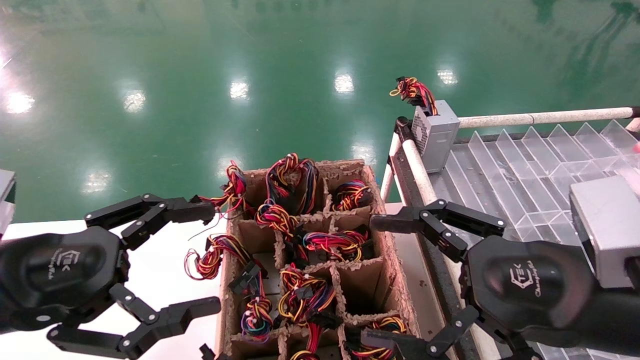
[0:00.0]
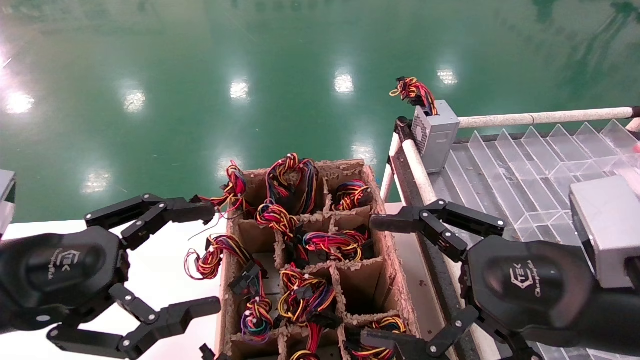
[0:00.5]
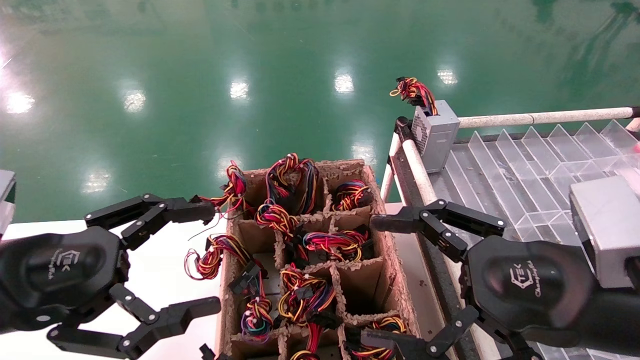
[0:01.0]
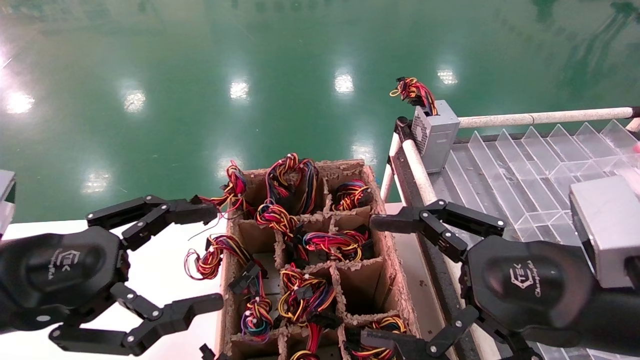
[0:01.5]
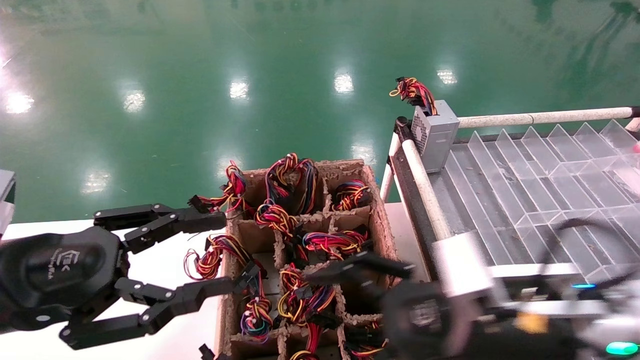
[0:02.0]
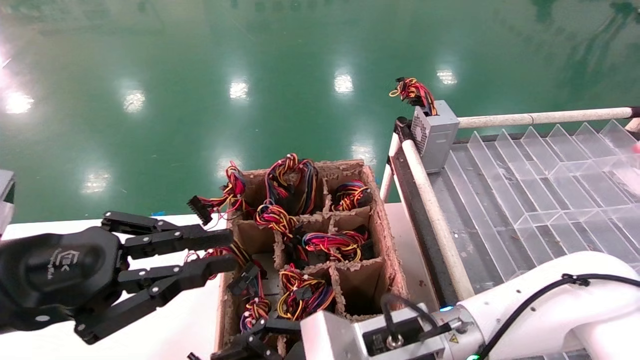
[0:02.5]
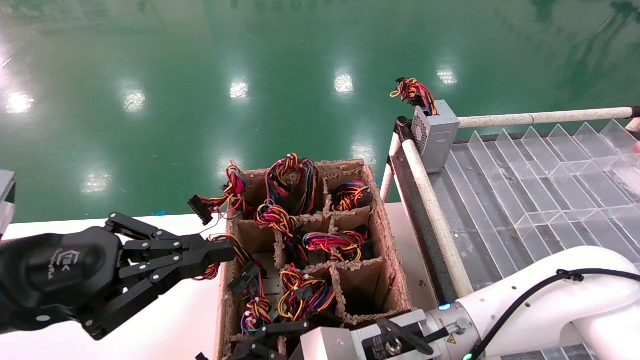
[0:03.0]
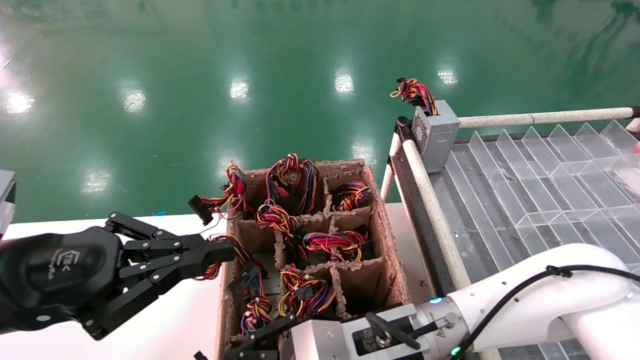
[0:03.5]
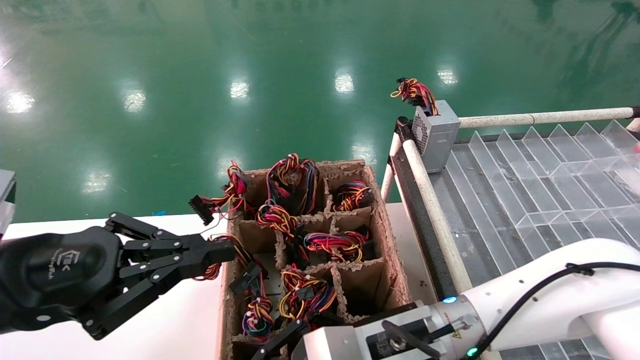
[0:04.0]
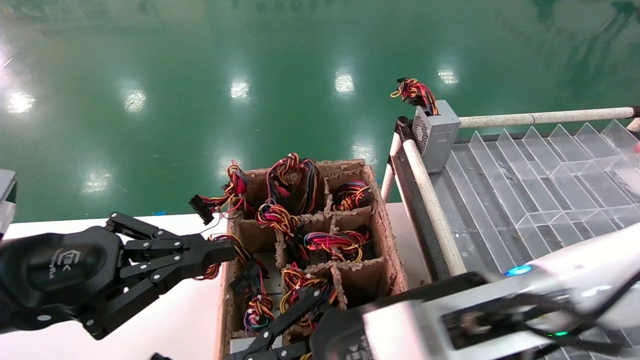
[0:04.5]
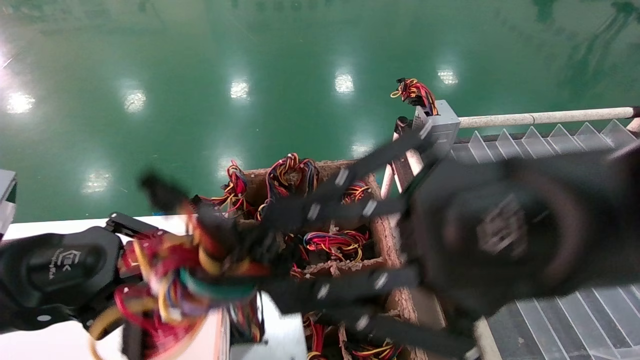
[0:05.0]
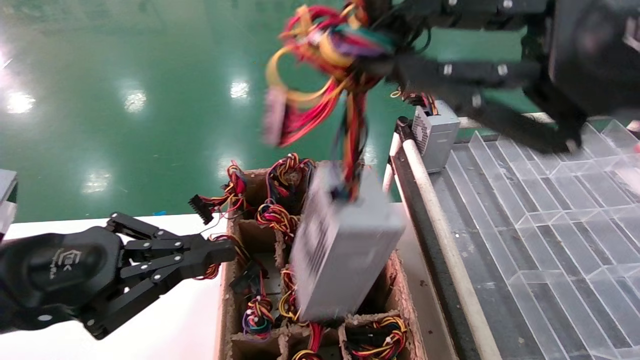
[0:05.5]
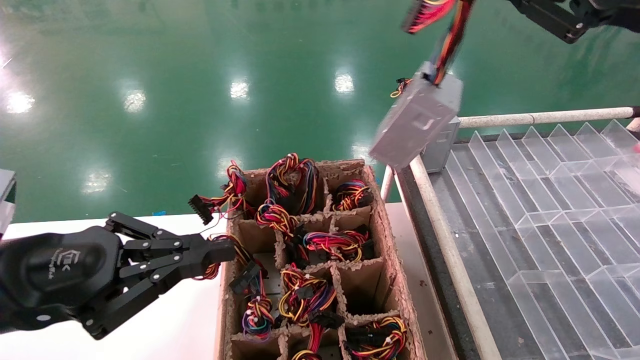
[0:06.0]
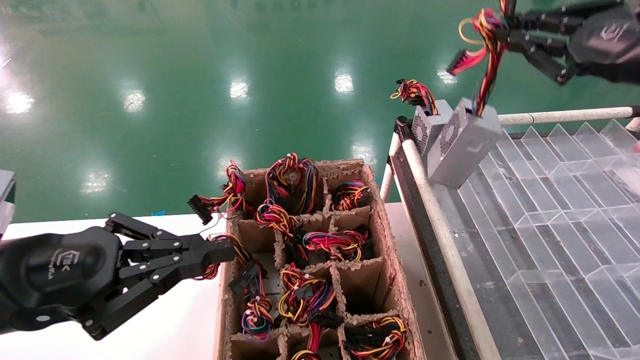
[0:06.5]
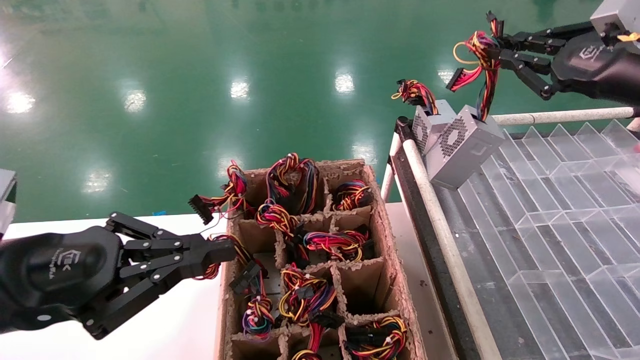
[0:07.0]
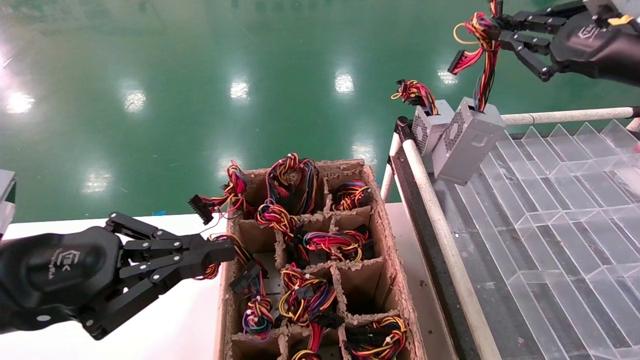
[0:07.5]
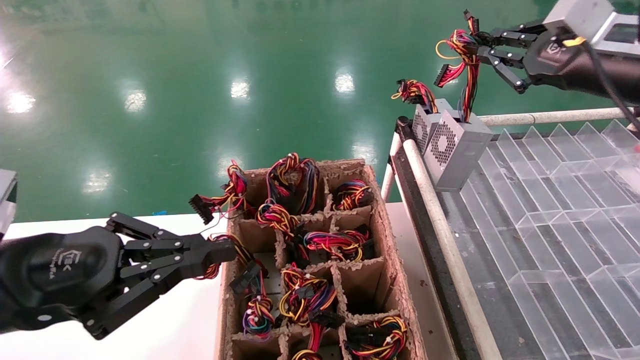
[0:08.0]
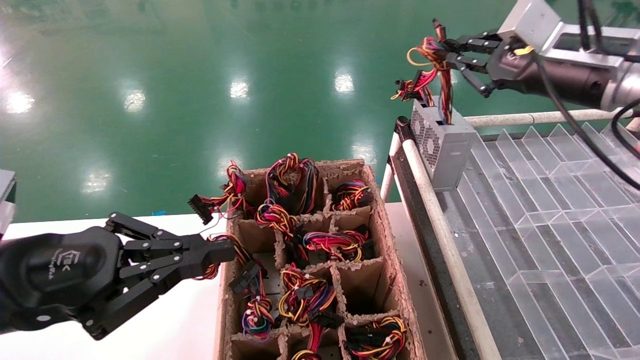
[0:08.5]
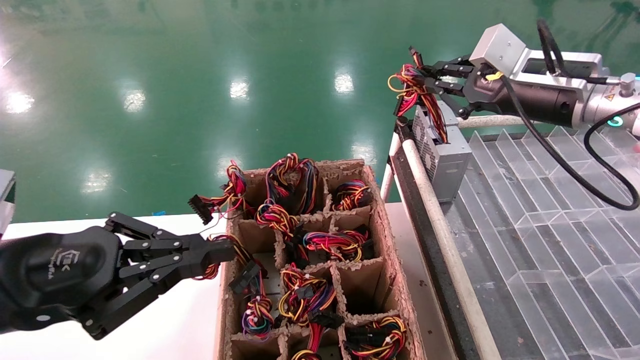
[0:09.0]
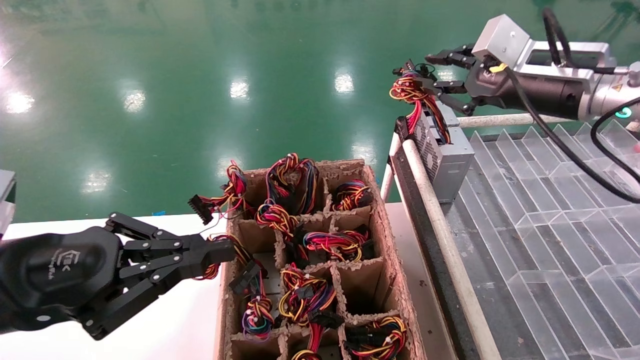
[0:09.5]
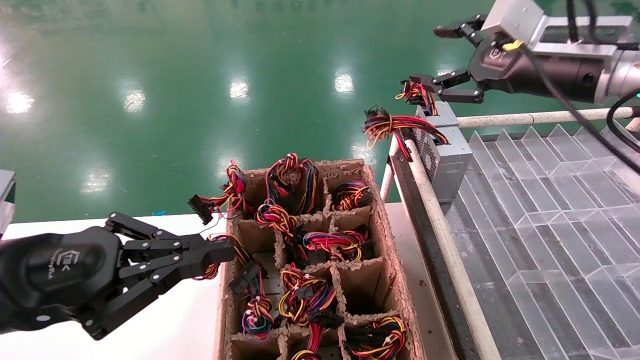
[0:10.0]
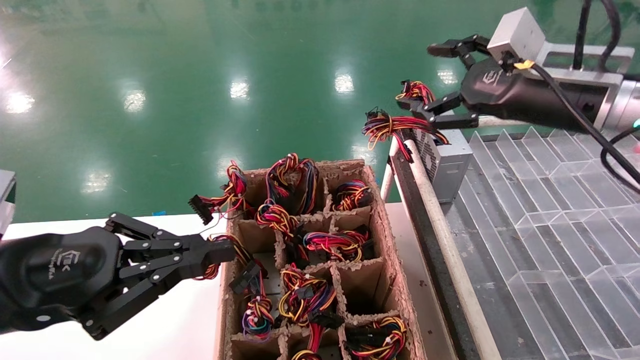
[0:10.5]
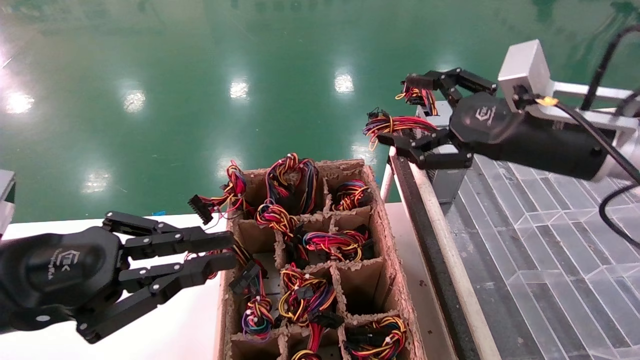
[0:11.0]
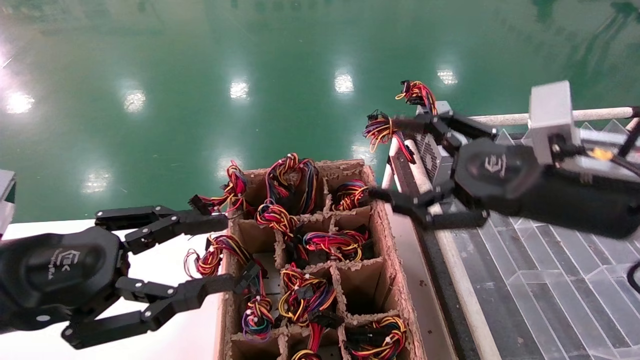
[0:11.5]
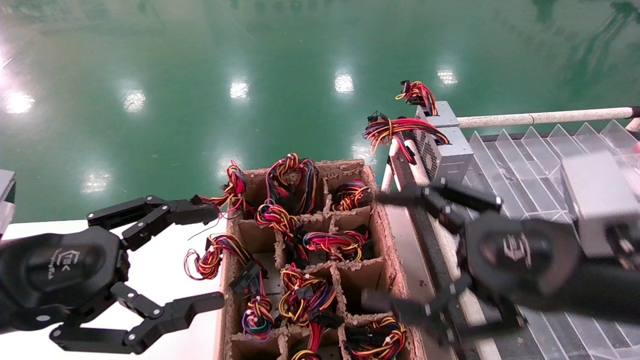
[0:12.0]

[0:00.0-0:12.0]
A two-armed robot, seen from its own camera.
Step, 0:02.0 to 0:04.0: Grab the main unit power supply from the containment box.
Step, 0:04.5 to 0:09.5: Place the main unit power supply in the designated area.
0:00.0 to 0:02.0: The right gripper goes some 10 cm to the left, downward and forward.
0:02.0 to 0:04.0: The left gripper closes up. The right gripper goes roughly 10 cm to the left, and closes its fingers.
0:04.0 to 0:06.0: The right gripper heads upward and to the right, covering roughly 40 cm.
0:06.0 to 0:08.0: The right gripper moves forward, some 10 cm.
0:08.0 to 0:10.0: The right gripper is displaced to the left by some 5 cm, and opens its fingers.
0:10.0 to 0:12.0: The right gripper shifts about 20 cm backward and downward, and opens its fingers; the left gripper opens its fingers.

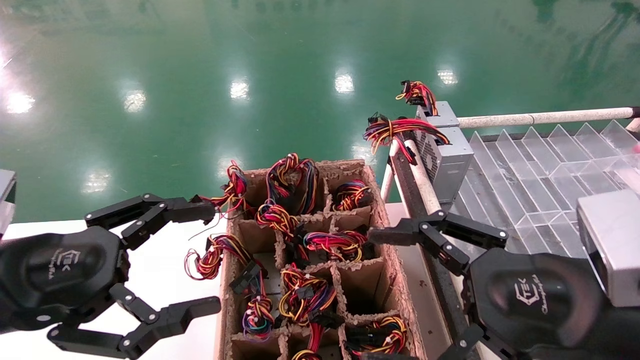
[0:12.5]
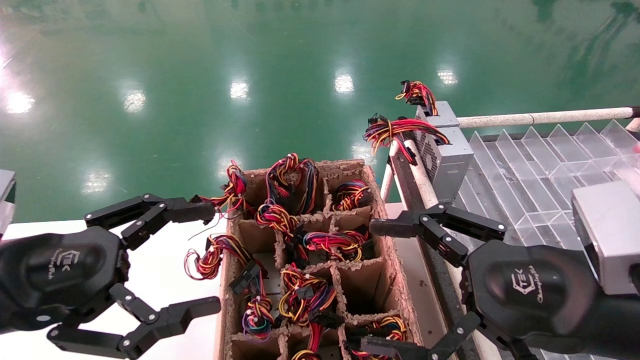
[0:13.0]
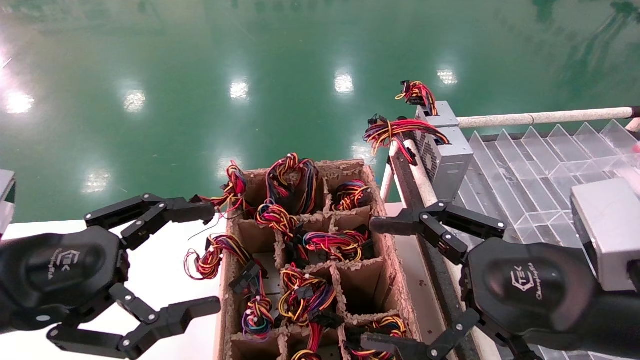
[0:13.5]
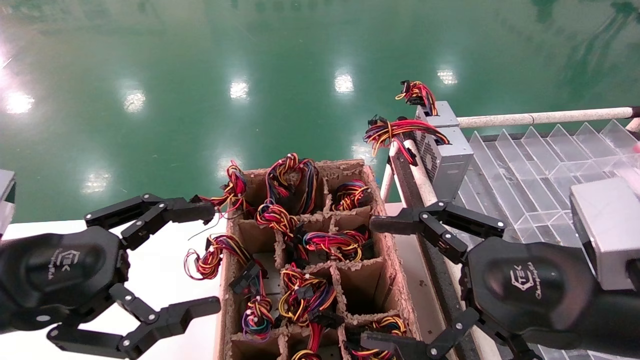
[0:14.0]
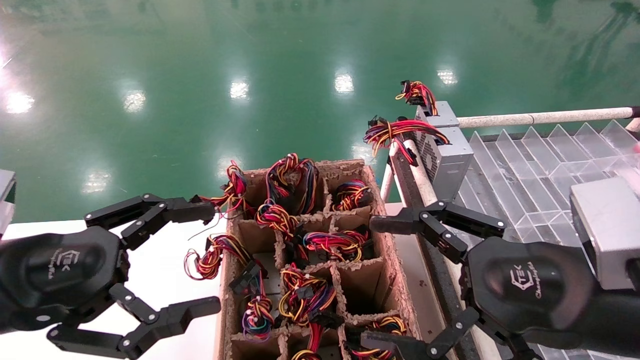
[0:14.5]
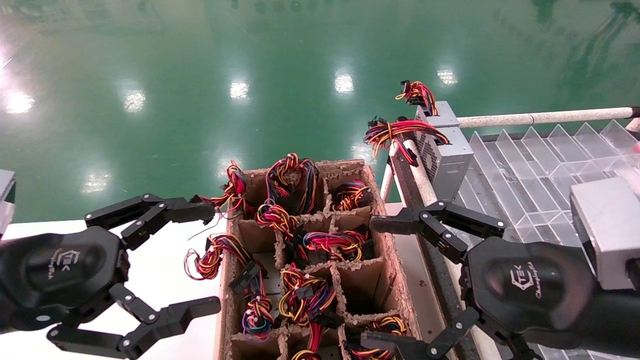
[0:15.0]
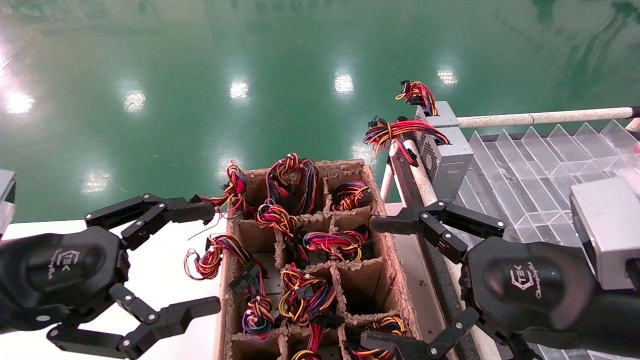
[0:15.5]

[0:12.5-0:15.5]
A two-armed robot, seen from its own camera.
0:12.5 to 0:15.5: The two grippers keep their place.

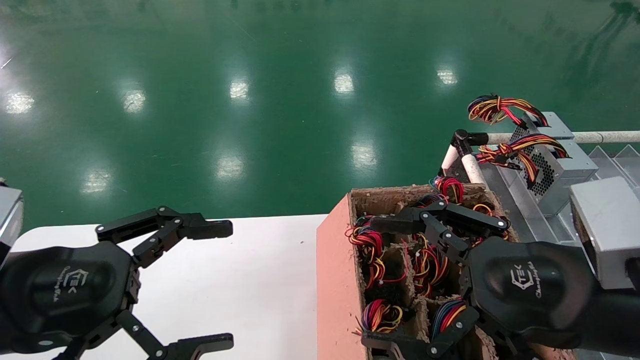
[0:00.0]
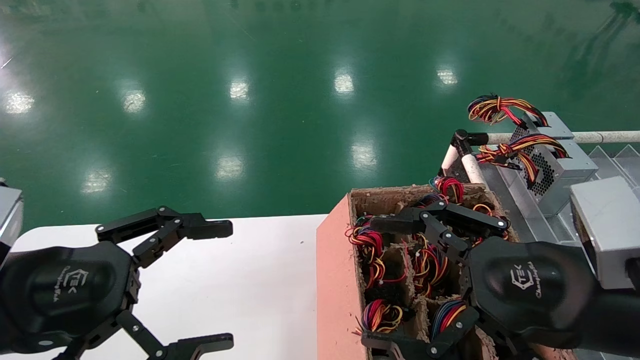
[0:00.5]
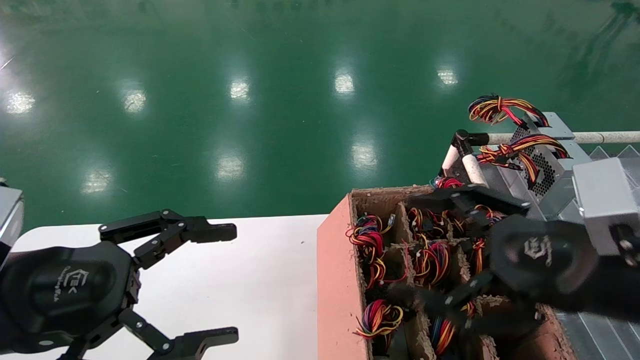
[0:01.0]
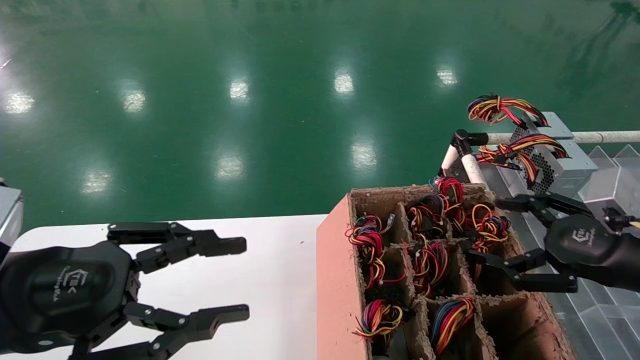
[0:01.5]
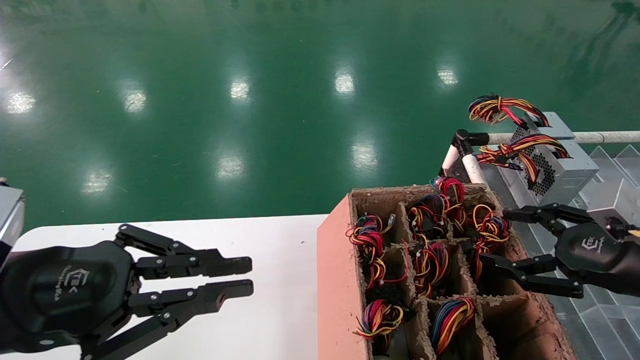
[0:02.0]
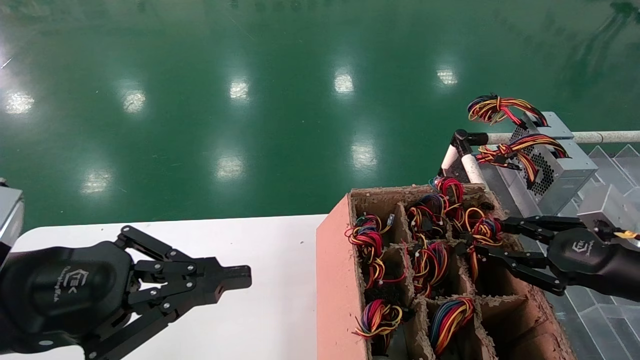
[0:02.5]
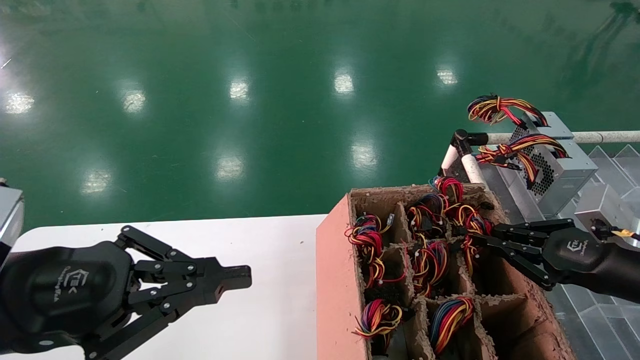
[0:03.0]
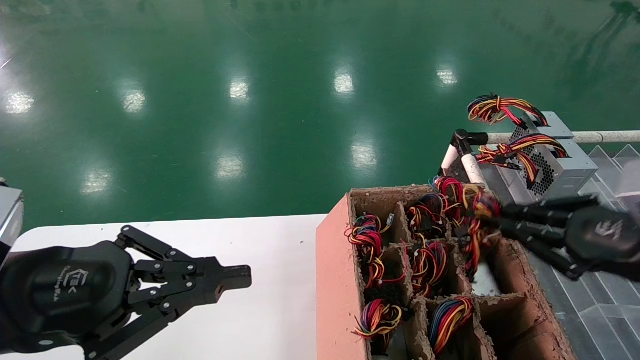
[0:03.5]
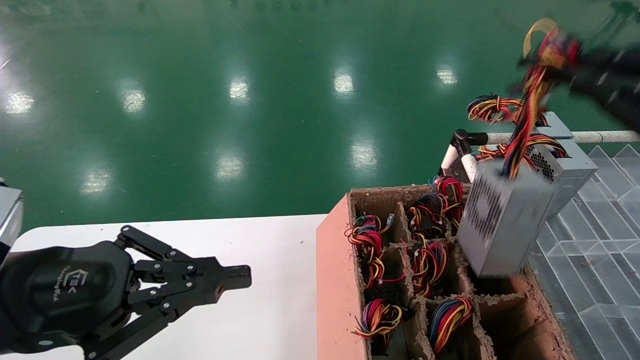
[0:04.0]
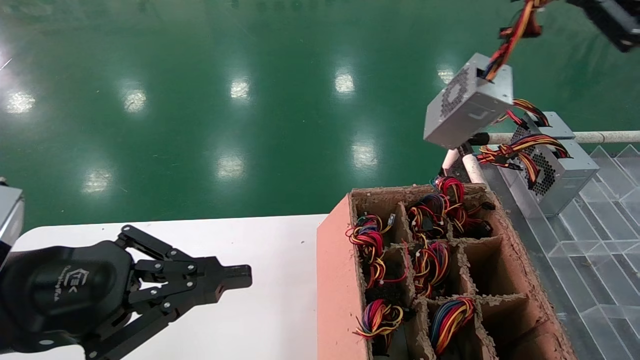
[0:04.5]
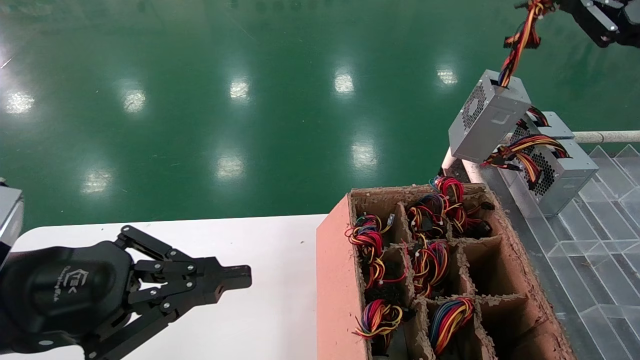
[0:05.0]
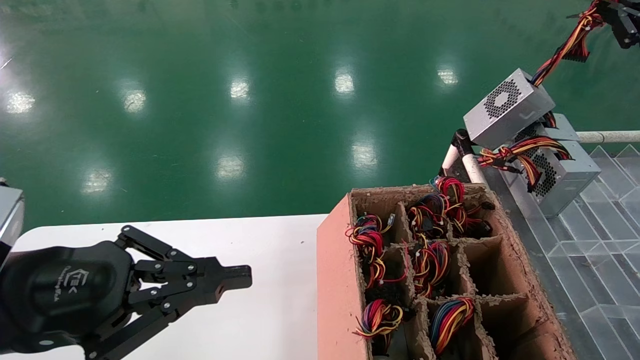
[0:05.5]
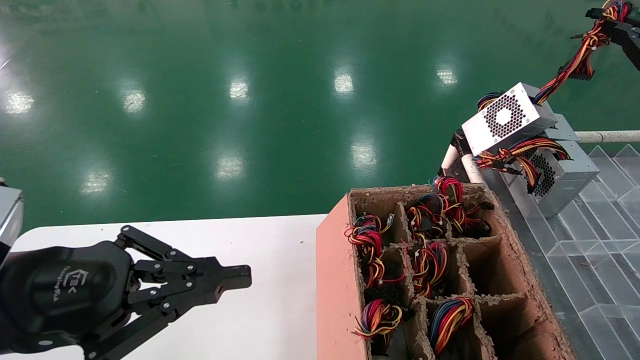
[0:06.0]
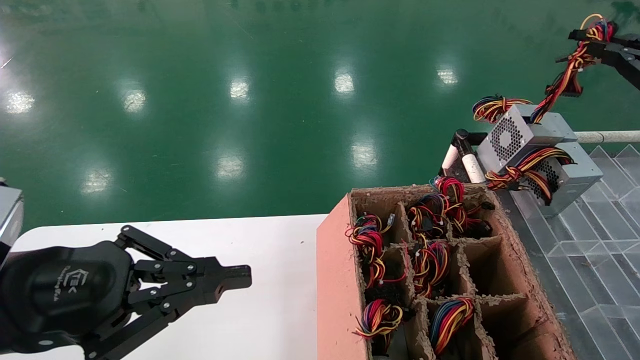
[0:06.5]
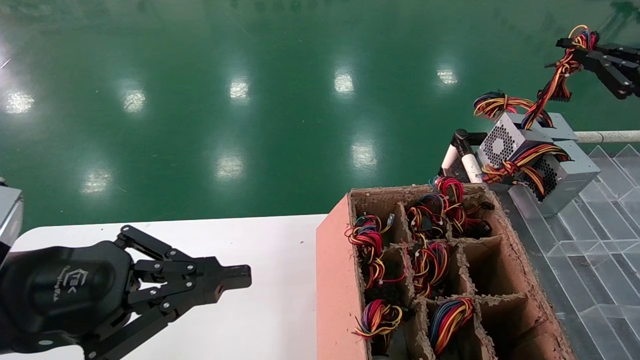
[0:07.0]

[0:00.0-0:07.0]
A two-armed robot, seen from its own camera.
Step, 0:01.0 to 0:03.0: Grab the main unit power supply from the containment box.
0:00.0 to 0:02.0: The left gripper closes up, while the right gripper moves to the right and forward, approximately 15 cm.
0:02.0 to 0:03.5: The right gripper closes its fingers.
0:03.5 to 0:05.0: The right gripper heads upward and forward, covering approximately 15 cm.
0:05.0 to 0:07.0: The right gripper ends up approximately 5 cm from where it was.
